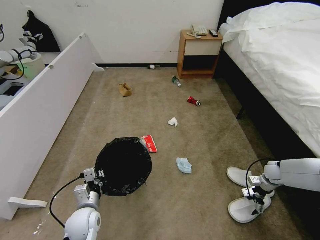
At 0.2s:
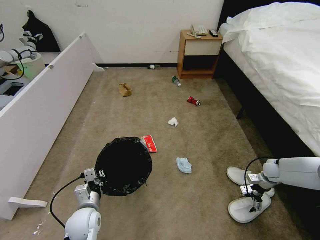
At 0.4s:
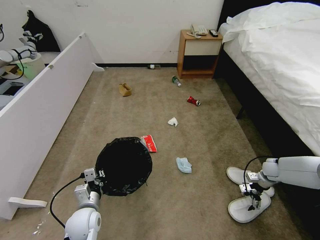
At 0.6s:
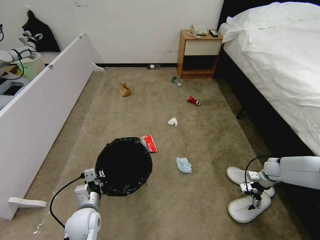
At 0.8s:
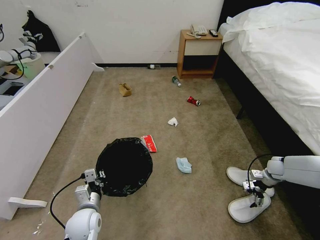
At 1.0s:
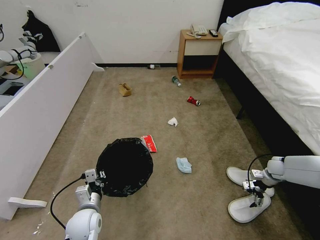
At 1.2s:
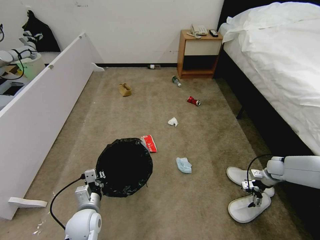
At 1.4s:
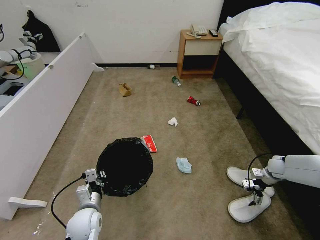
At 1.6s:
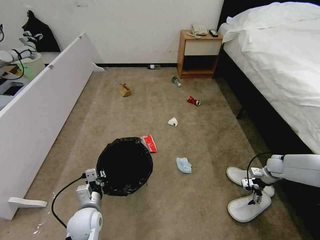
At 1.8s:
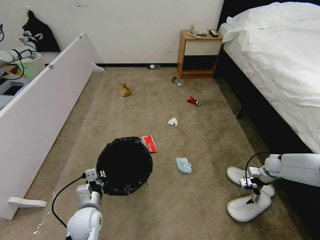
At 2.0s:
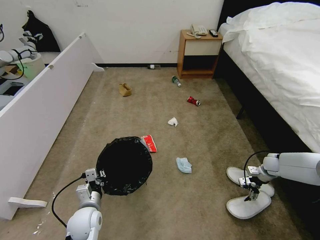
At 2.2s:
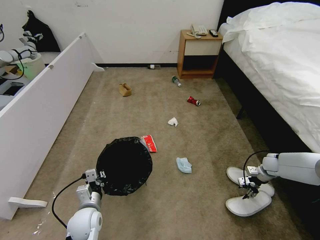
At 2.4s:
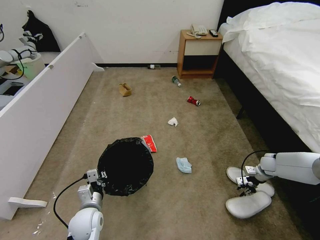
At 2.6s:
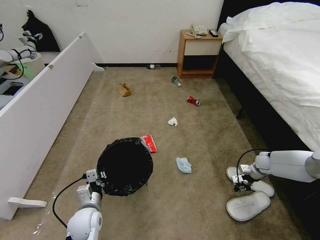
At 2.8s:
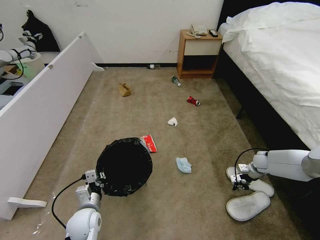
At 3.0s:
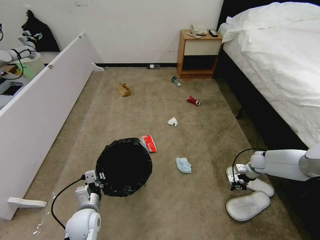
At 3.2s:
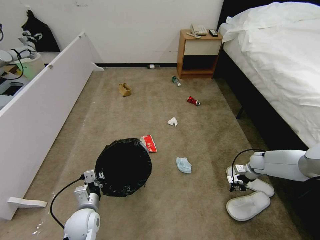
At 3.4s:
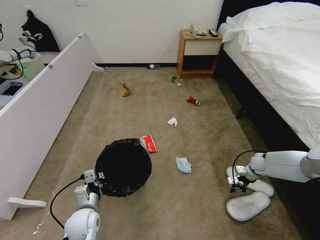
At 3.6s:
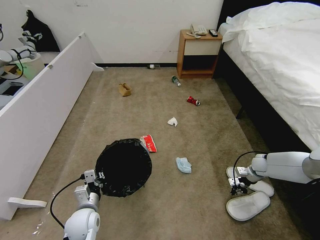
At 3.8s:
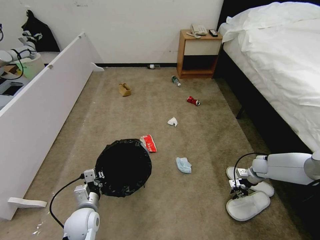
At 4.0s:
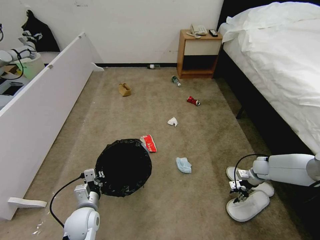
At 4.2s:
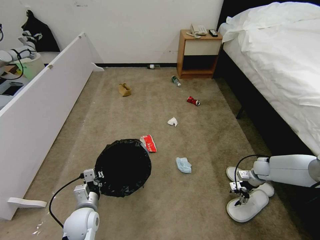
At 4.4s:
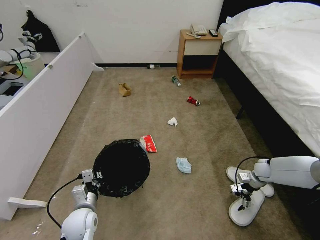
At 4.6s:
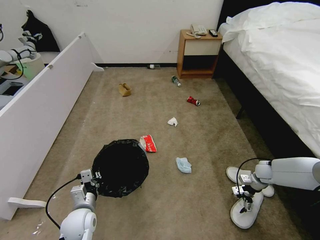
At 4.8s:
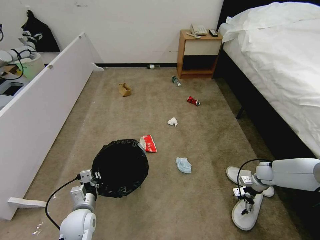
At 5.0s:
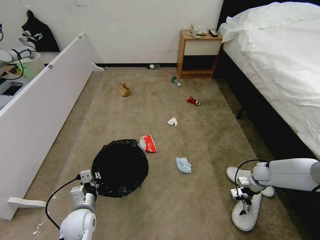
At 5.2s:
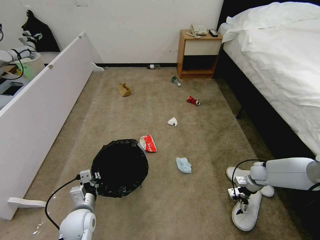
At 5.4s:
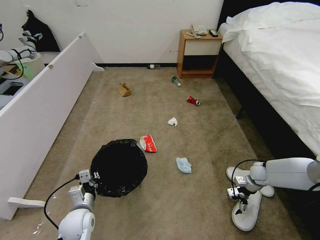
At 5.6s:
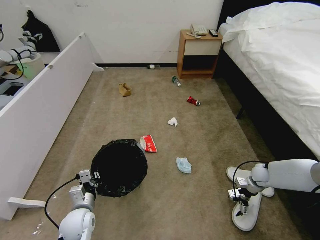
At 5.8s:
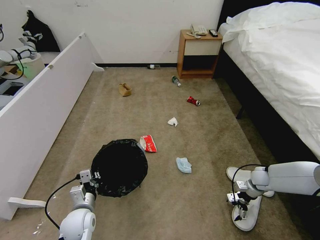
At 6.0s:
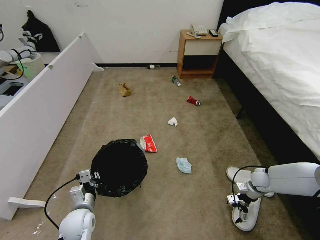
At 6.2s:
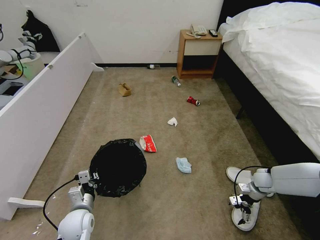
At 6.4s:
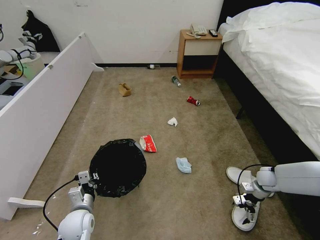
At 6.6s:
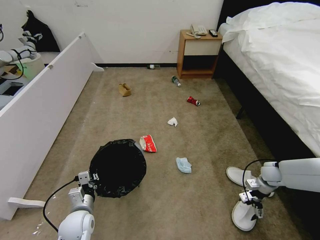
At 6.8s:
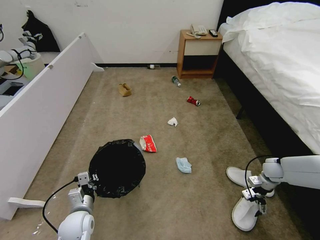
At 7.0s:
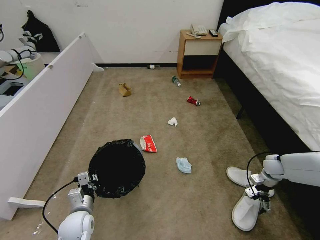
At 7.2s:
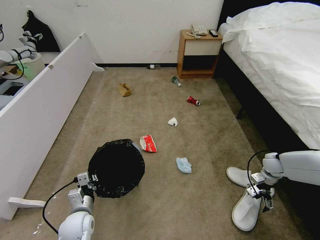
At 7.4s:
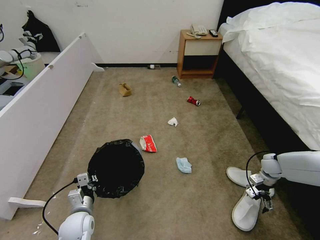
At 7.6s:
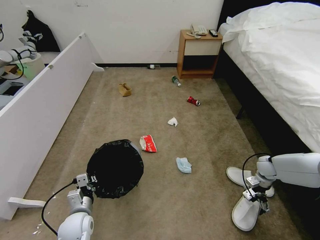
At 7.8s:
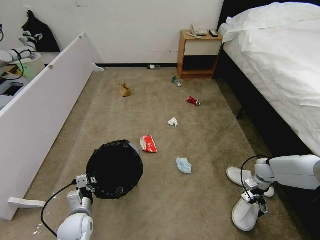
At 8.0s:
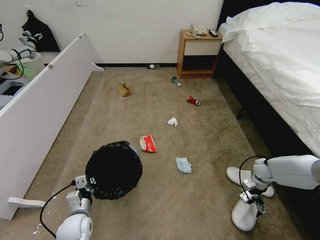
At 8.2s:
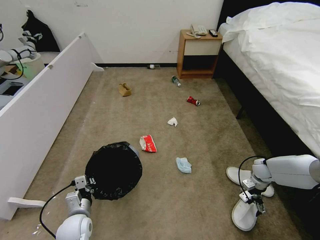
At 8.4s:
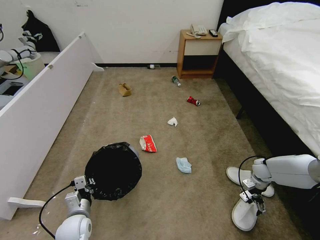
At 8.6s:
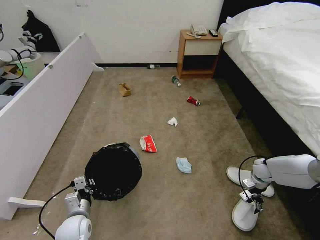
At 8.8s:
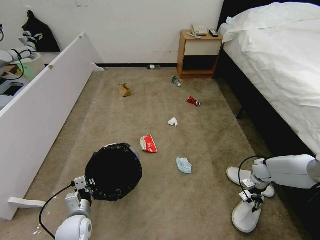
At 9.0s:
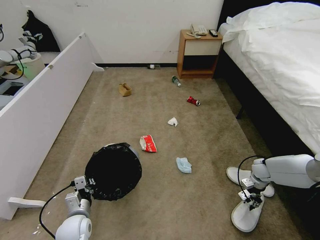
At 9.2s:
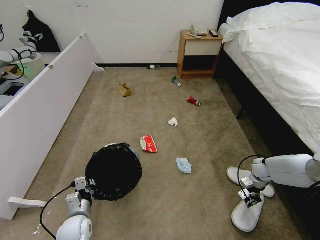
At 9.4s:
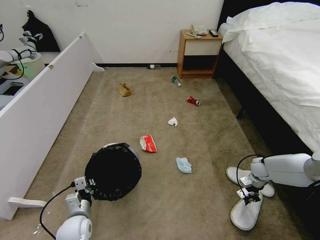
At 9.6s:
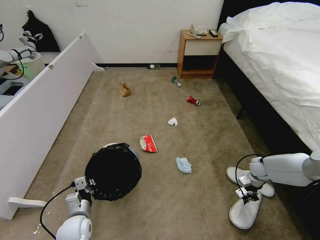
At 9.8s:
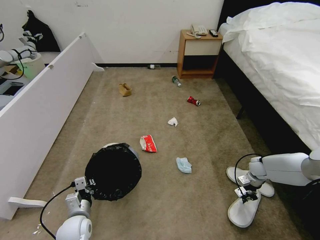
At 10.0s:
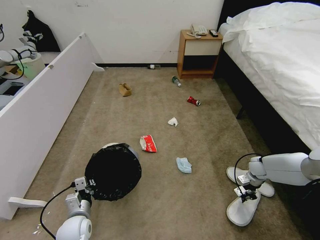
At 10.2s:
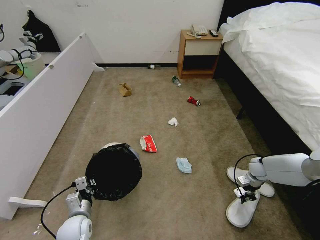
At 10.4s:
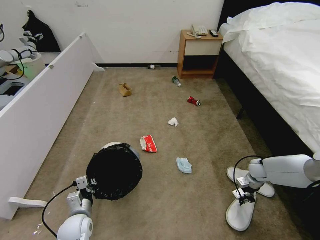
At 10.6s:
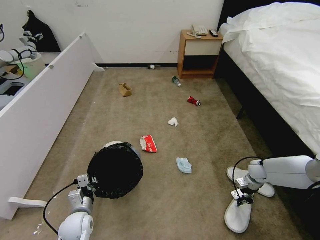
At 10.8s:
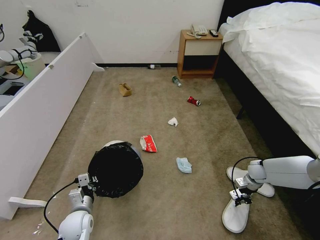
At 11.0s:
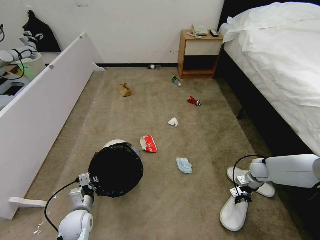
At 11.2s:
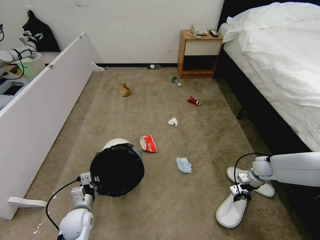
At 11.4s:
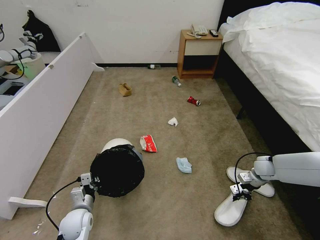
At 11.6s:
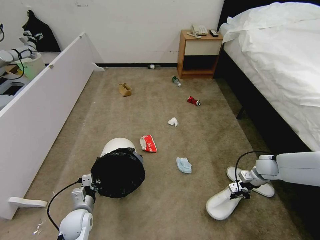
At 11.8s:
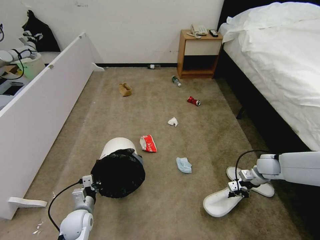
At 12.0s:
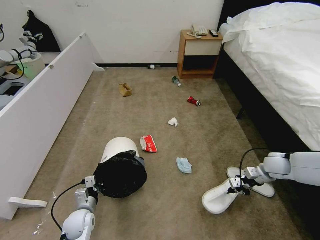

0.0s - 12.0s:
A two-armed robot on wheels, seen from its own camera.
Task of the whole recording: Pick up the trash bin and place the garbage on the floor into it.
0.0s - 1.6s: There are only small adjustments of the grippers.
1.6s - 3.0s: The right gripper travels to the left by about 5 cm, and closes.
3.0s - 4.4s: The right gripper opens.
4.4s - 6.0s: The grippers stay close to where they were, moving slightly.
6.0s - 7.6s: The right gripper moves some 5 cm.
7.6s - 9.0s: The right gripper closes.
9.0s - 10.4s: The right gripper closes.
10.4s - 12.0s: The right gripper moves upward, some 10 cm.

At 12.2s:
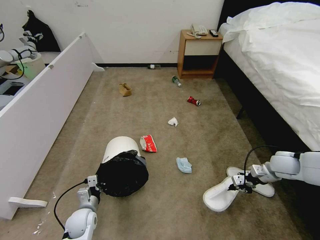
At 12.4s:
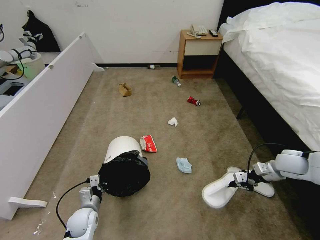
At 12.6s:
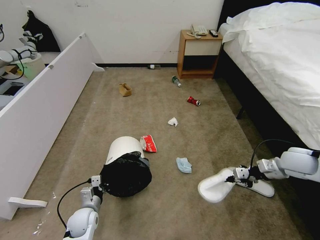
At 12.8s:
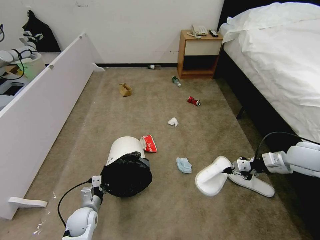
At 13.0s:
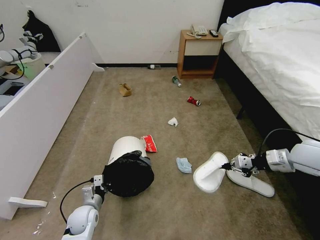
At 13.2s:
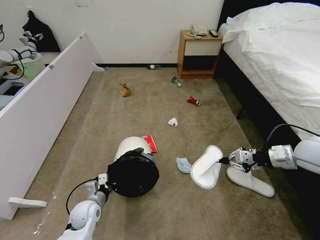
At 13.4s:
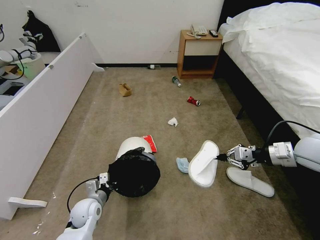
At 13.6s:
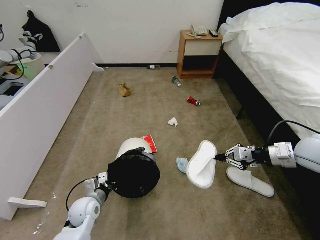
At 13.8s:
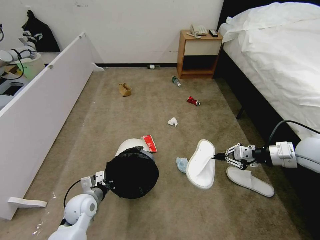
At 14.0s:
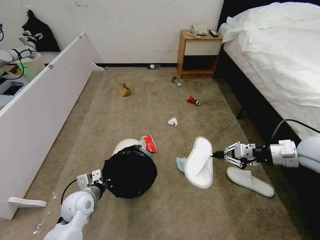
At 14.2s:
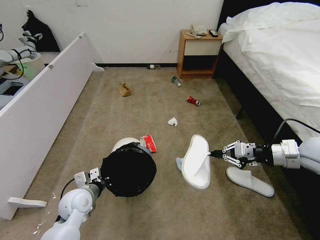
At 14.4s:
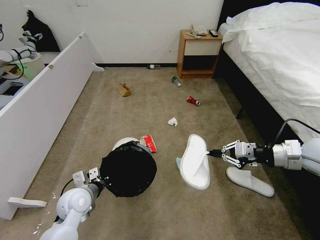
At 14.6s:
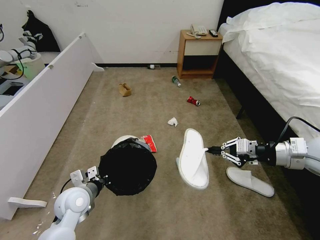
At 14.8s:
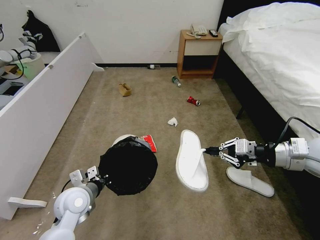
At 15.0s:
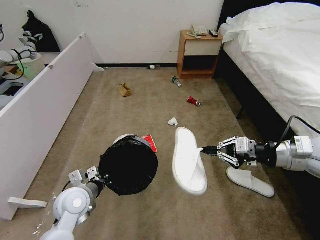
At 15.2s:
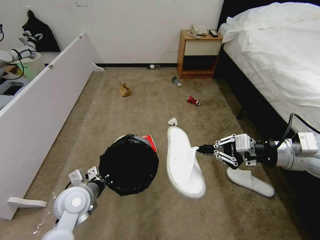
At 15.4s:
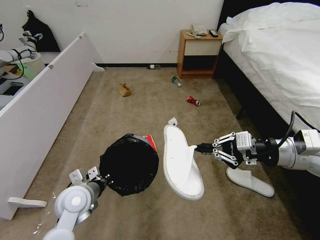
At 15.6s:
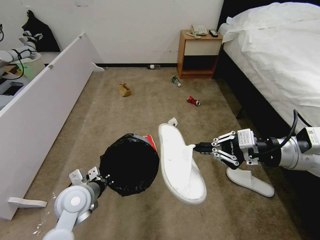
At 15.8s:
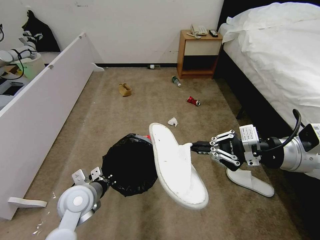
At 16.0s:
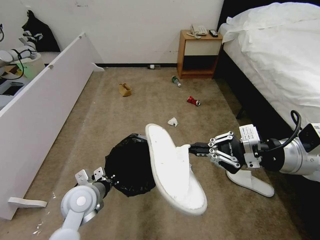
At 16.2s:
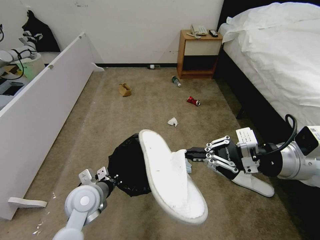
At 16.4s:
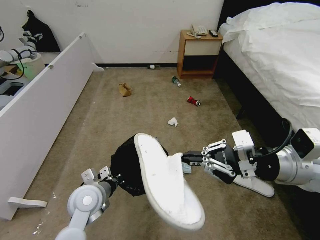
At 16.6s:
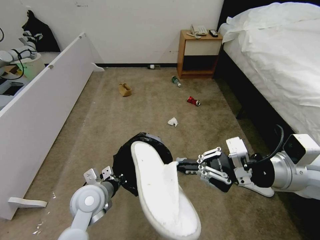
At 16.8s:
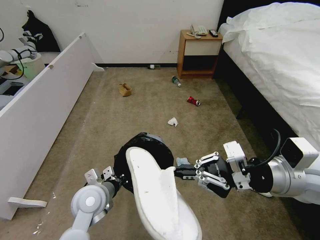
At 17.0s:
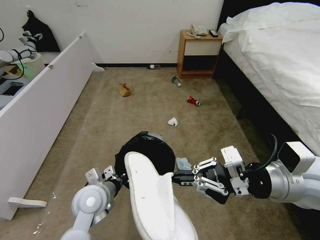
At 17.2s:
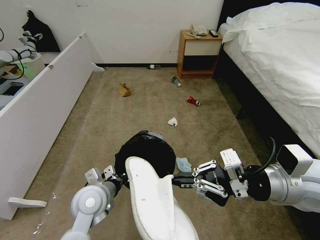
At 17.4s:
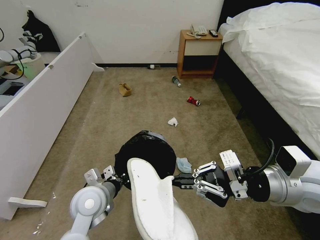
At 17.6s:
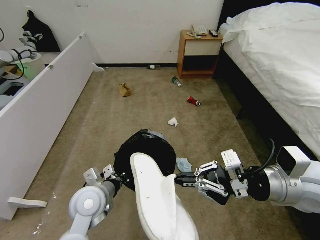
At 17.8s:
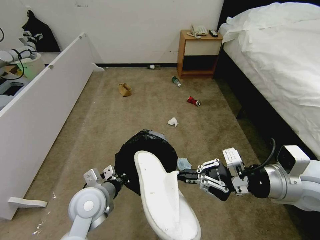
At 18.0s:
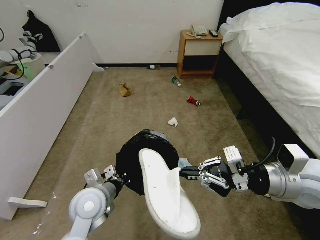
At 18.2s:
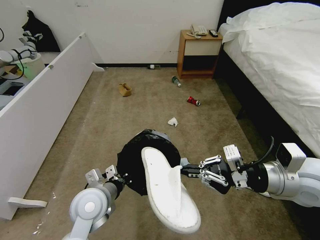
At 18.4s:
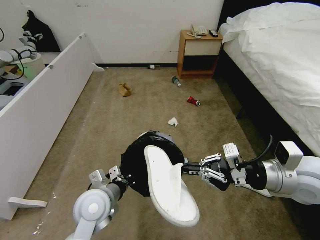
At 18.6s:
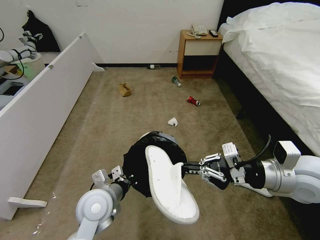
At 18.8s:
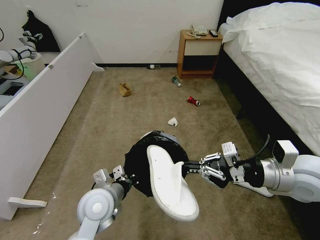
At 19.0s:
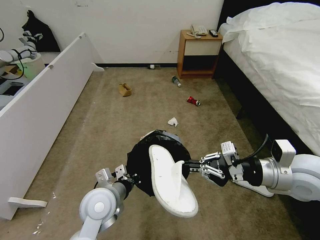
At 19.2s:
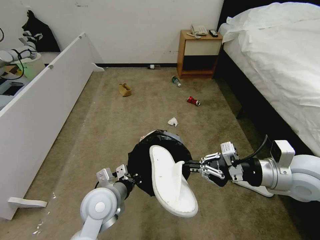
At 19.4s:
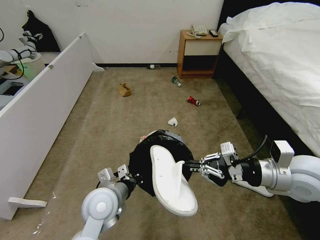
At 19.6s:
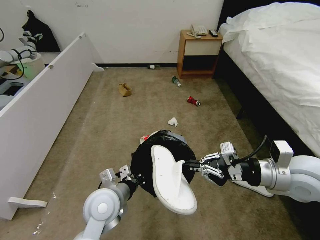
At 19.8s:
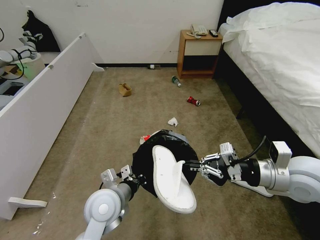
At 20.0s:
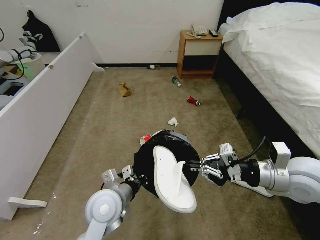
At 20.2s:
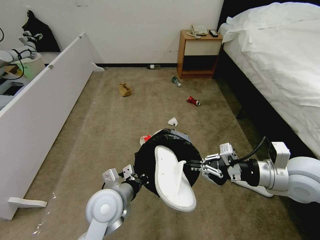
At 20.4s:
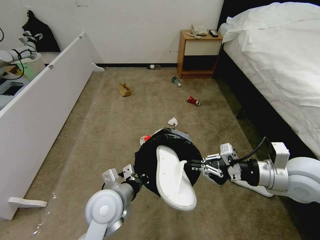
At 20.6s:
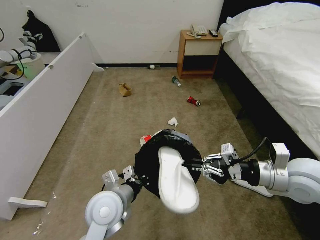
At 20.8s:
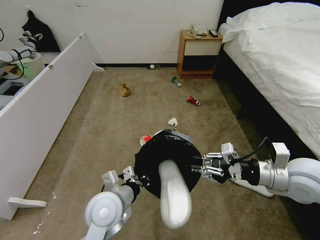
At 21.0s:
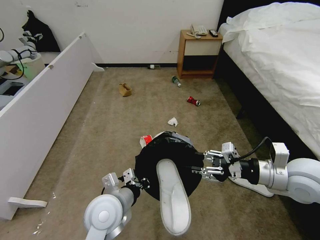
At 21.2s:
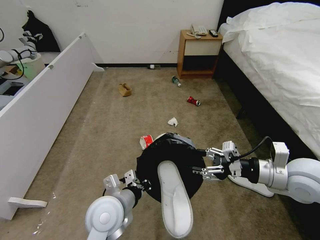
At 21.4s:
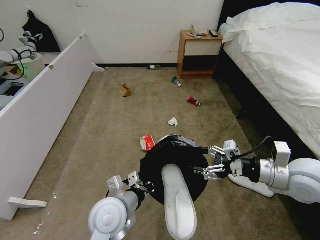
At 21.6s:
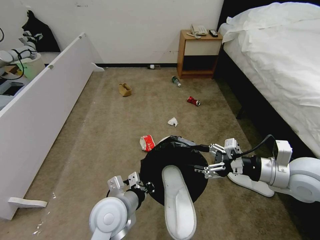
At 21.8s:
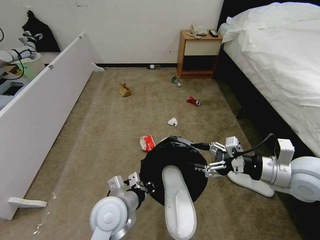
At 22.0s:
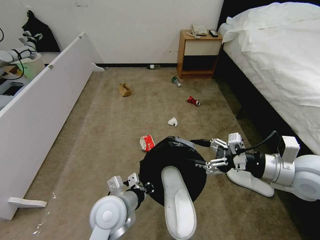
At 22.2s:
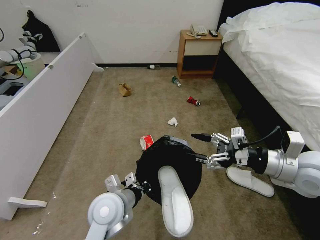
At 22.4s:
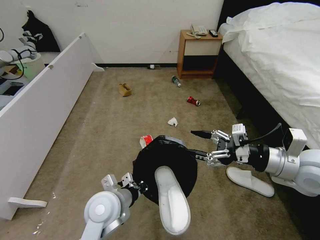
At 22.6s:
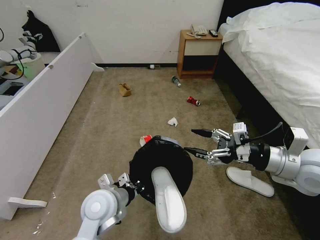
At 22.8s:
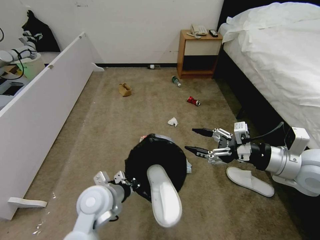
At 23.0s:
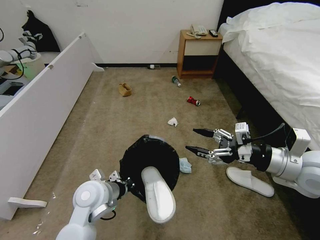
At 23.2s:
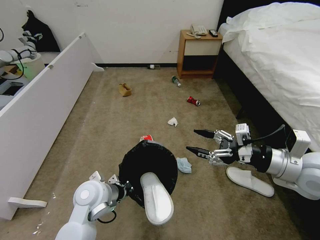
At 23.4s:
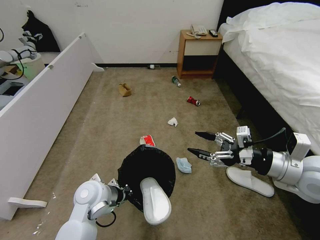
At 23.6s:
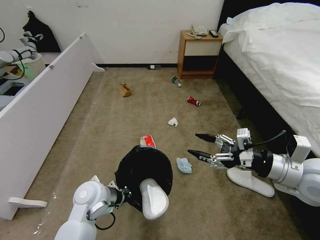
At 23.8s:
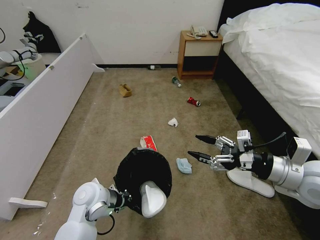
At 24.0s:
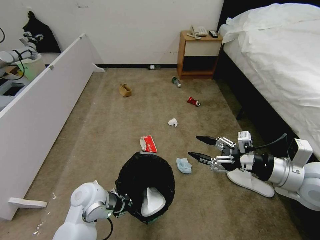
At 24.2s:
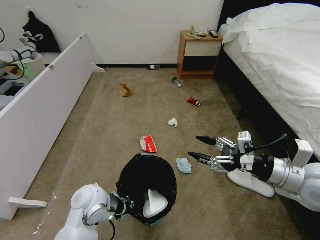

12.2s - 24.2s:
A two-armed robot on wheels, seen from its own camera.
Task of the whole recording: Pick up the trash bin and place the garbage on the floor into it.
12.2s - 13.8s: The right gripper shifts roughly 15 cm upward. Meanwhile the left gripper travels upward by some 5 cm.
13.8s - 15.2s: The right gripper moves to the left, roughly 5 cm. Meanwhile the left gripper shifts about 10 cm upward.
15.2s - 16.6s: The right gripper travels to the left by about 5 cm.
16.6s - 18.2s: The grippers move only a little.
18.2s - 19.8s: The grippers move only a little.
19.8s - 21.2s: The right gripper opens.
21.2s - 22.6s: The grippers make only small movements.
22.6s - 24.2s: The left gripper ends up some 5 cm from where it was.
